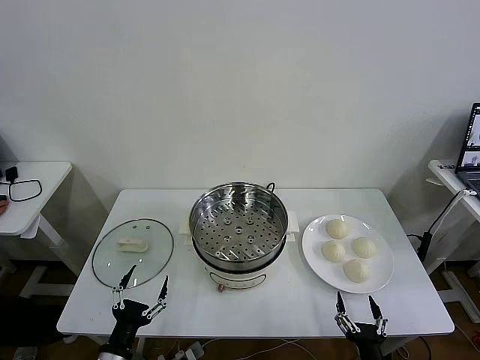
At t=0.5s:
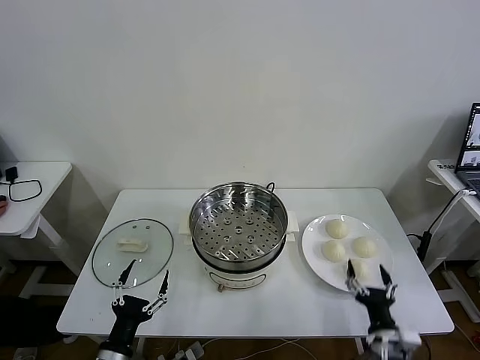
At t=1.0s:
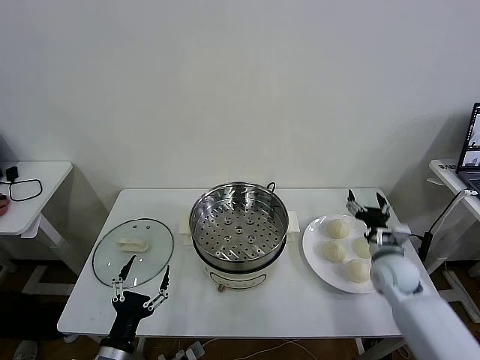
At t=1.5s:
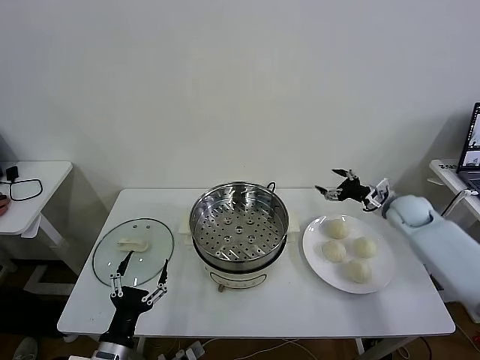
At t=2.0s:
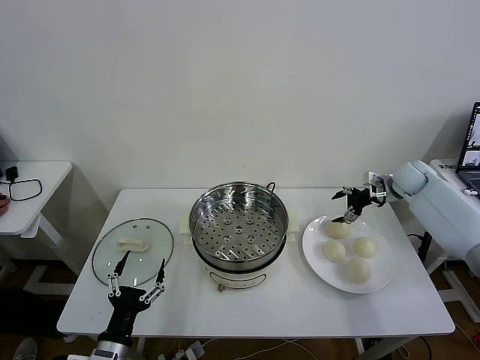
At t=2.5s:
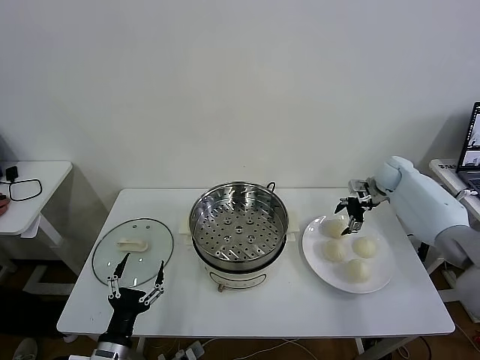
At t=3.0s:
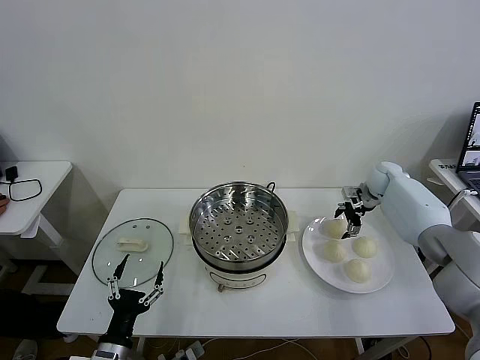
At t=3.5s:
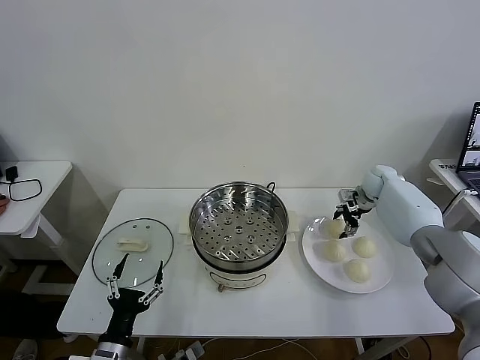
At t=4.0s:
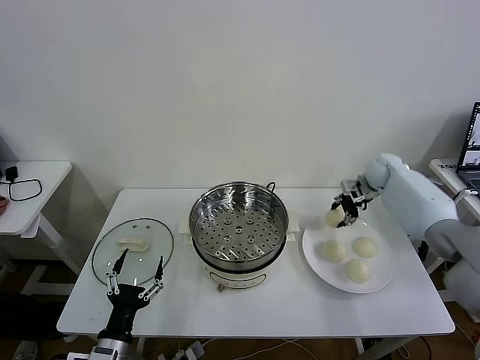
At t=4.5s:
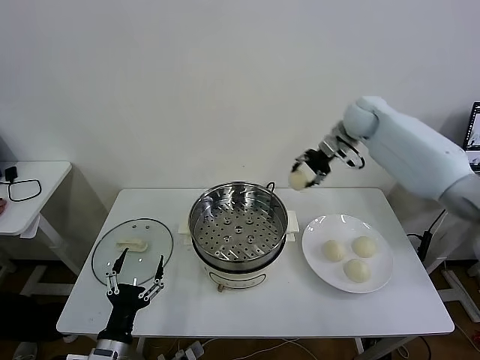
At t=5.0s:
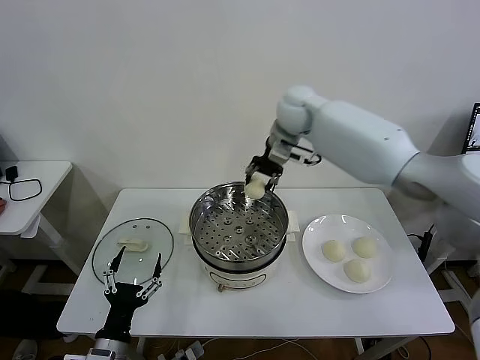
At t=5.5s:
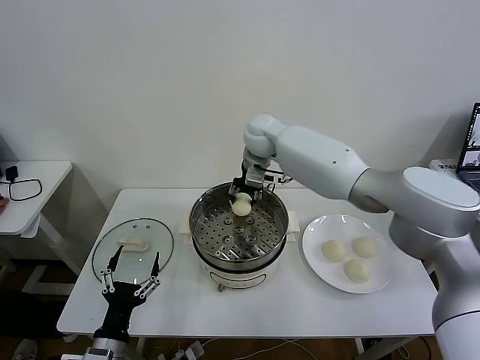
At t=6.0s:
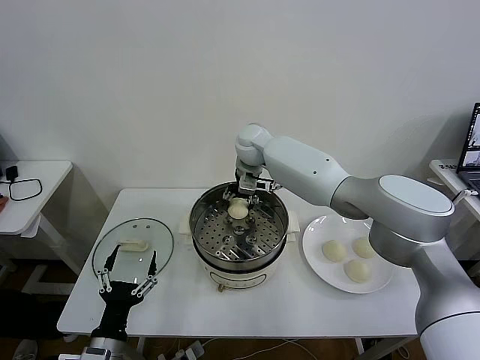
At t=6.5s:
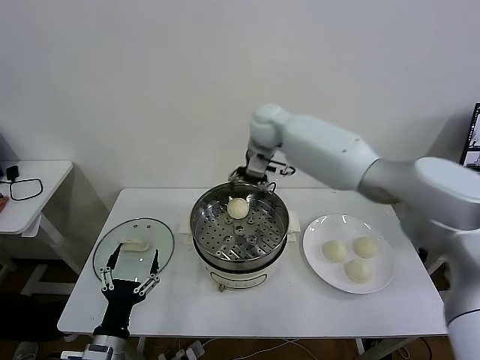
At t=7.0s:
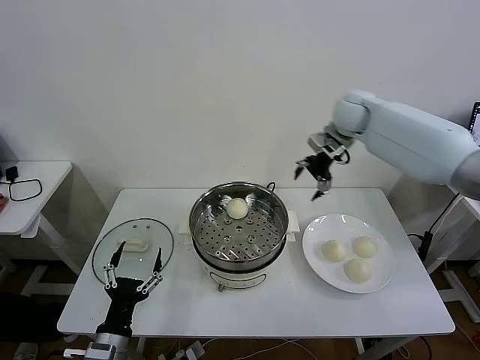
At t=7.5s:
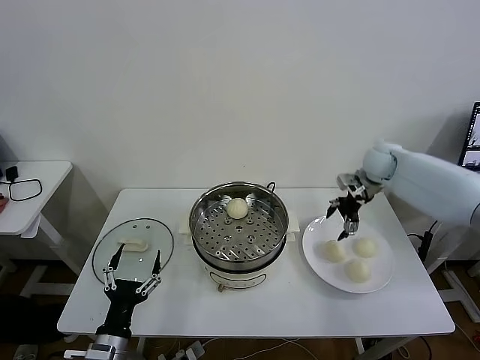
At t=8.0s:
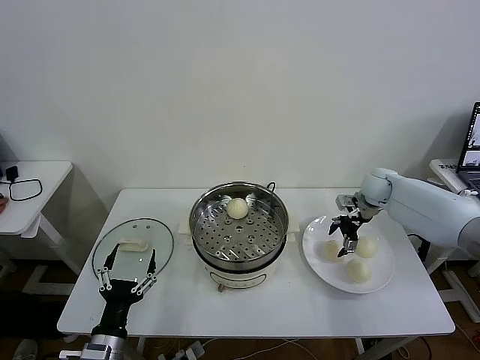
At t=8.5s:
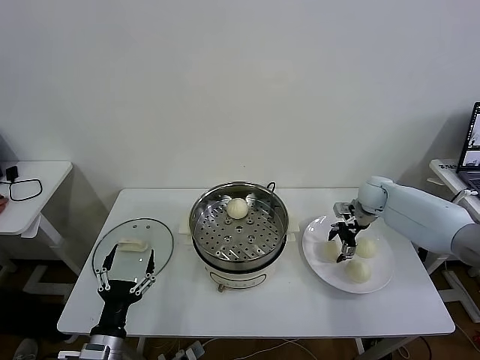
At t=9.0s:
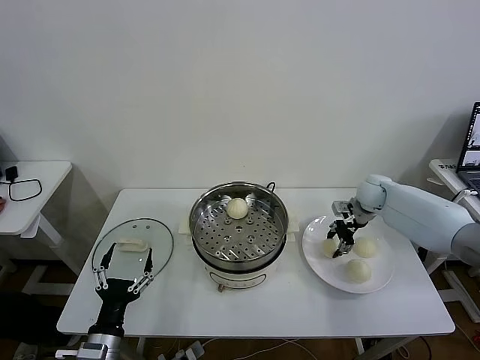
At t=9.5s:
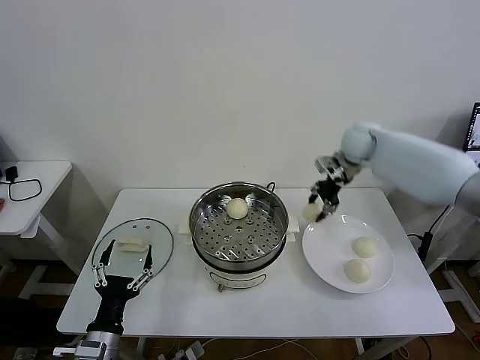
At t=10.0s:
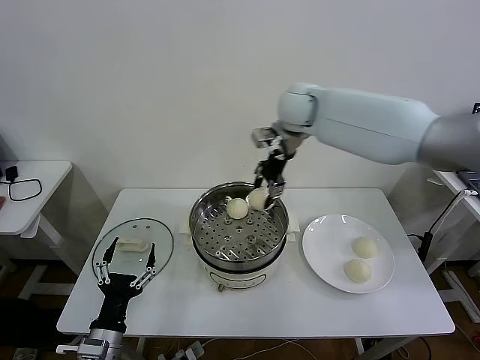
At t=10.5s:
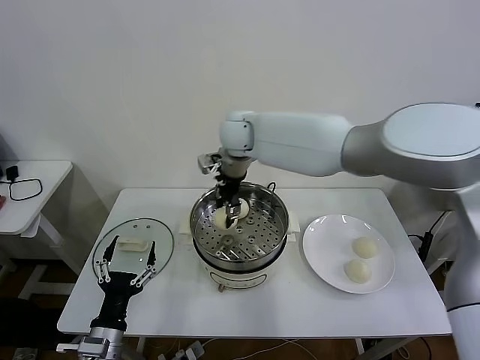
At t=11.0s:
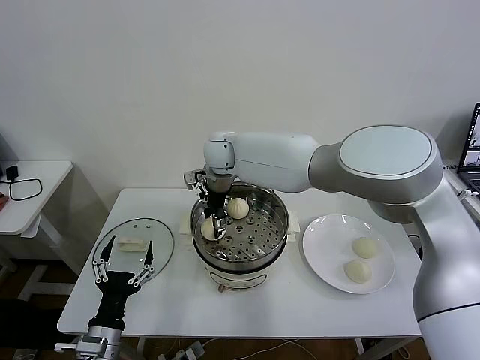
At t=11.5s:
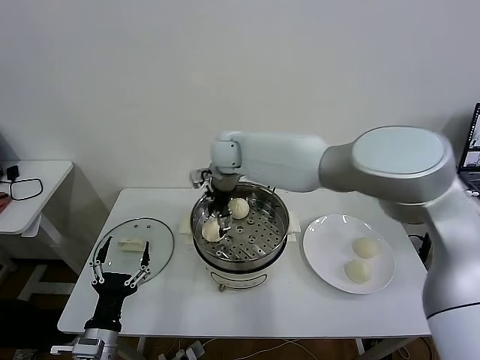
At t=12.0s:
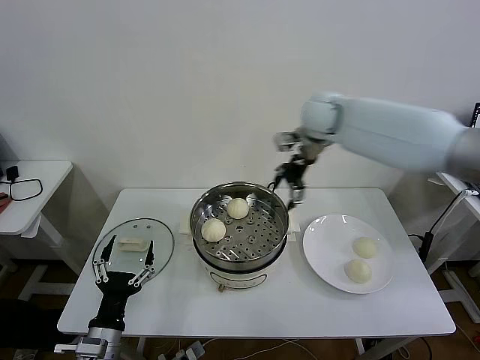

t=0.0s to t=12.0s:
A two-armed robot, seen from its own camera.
Task of the whole recording: take steamed baozi put them in steamer then cover it.
Step, t=0.0s to t=3.5s: Grasp the baozi in the plate with right gripper.
Step, t=4.0s to t=6.0s: Place the baozi on the steamer with right gripper.
Step, t=6.5s to t=8.5s: Grasp the baozi in the plate with right gripper.
Step, t=9.5s to t=11.5s: Place the baozi on the steamer with right gripper.
t=2.0s to t=4.0s: The right gripper goes some 5 cm to the left, goes downward and returns, approximately 5 cm each way, and closes.
t=4.0s to t=6.0s: The right gripper travels to the left by some 35 cm, and opens.
t=6.0s to t=8.0s: The right gripper is displaced to the right by roughly 35 cm.
t=8.0s to t=10.0s: The right gripper moves to the left and upward, some 35 cm, and closes up.
t=10.0s to t=12.0s: The right gripper goes approximately 10 cm to the right, and opens up.

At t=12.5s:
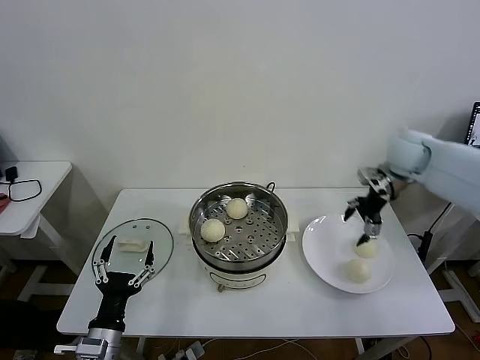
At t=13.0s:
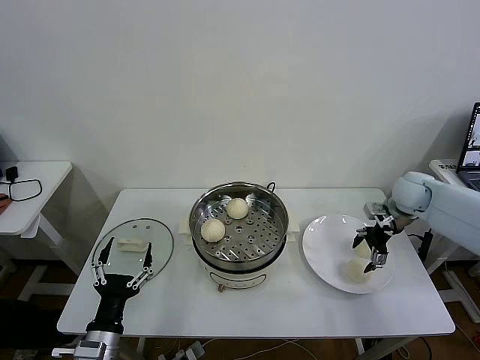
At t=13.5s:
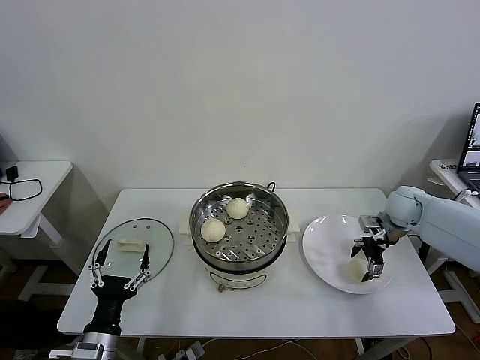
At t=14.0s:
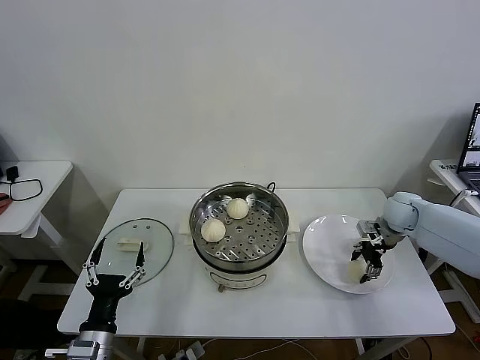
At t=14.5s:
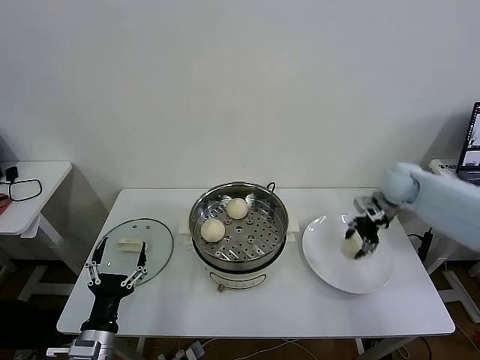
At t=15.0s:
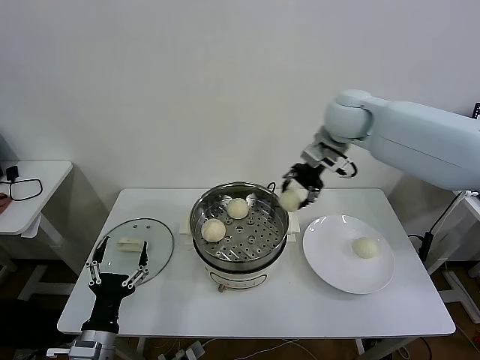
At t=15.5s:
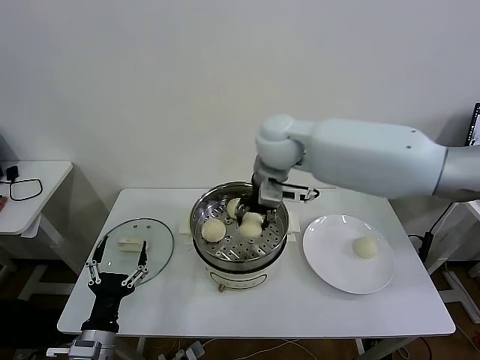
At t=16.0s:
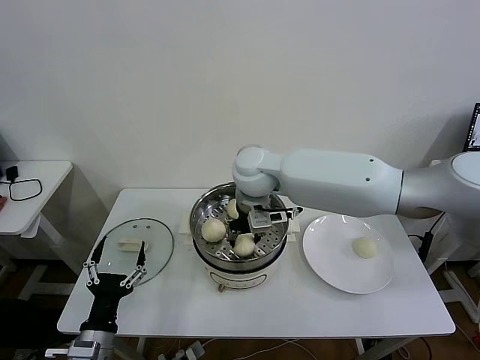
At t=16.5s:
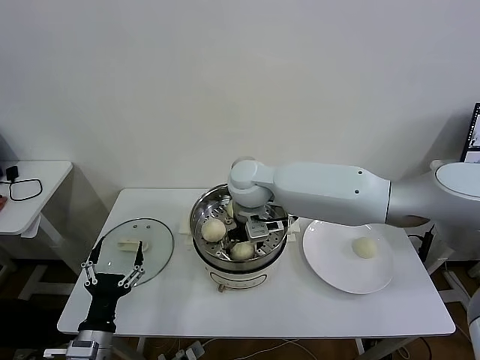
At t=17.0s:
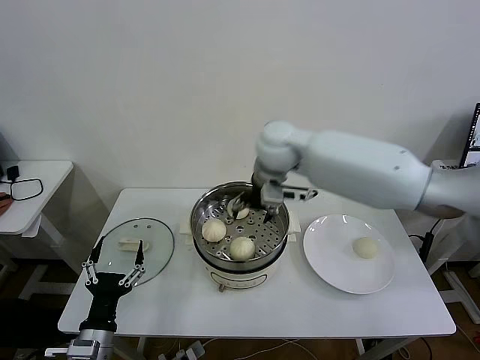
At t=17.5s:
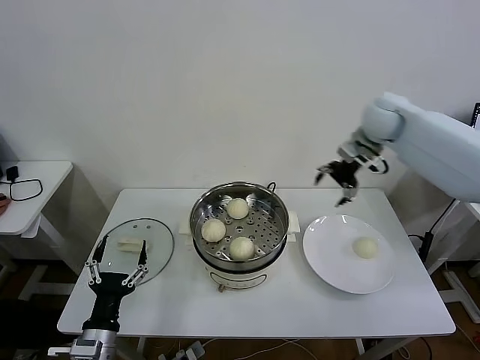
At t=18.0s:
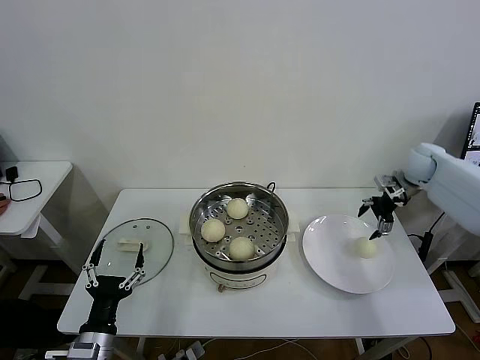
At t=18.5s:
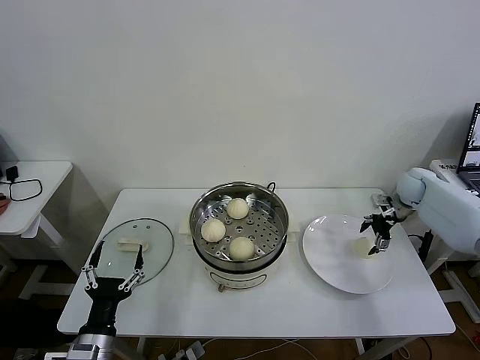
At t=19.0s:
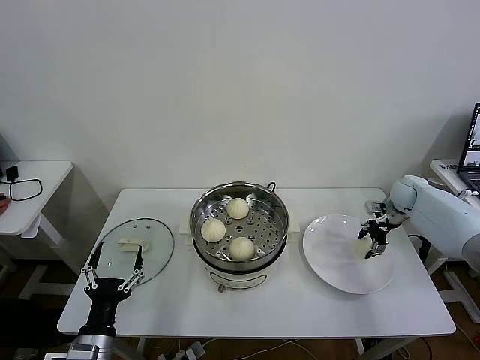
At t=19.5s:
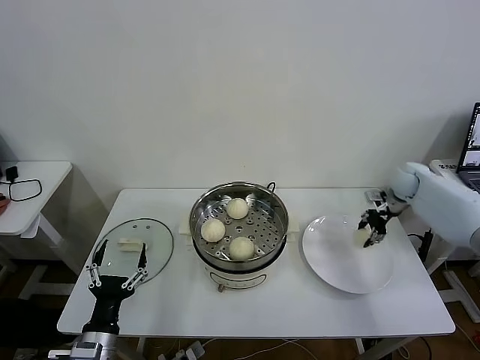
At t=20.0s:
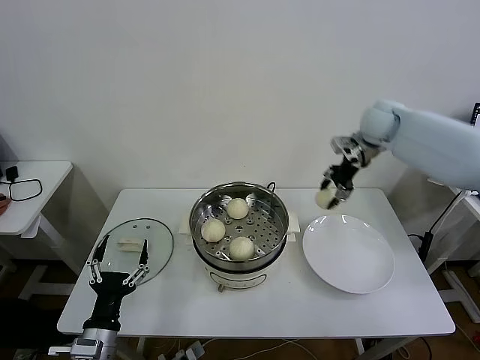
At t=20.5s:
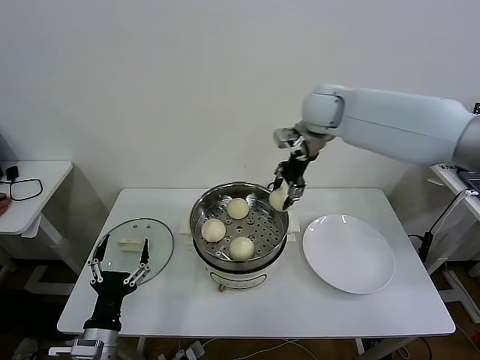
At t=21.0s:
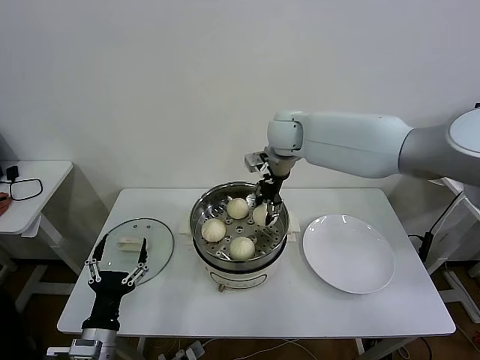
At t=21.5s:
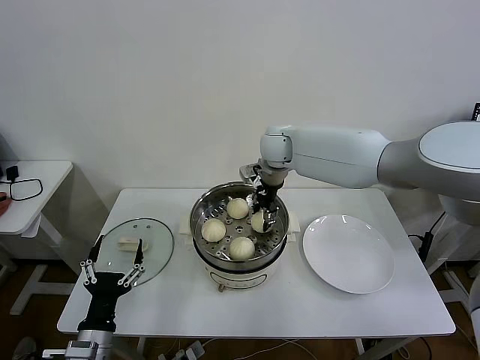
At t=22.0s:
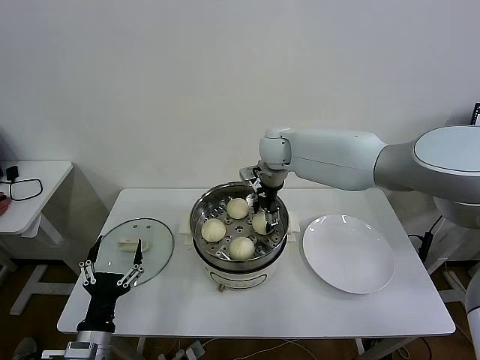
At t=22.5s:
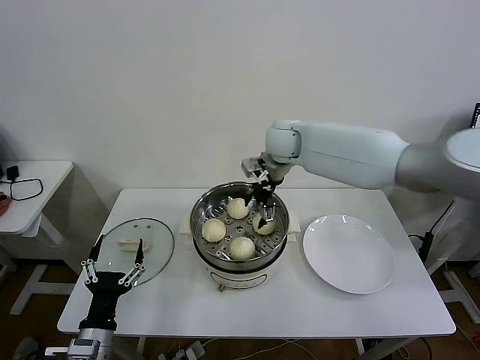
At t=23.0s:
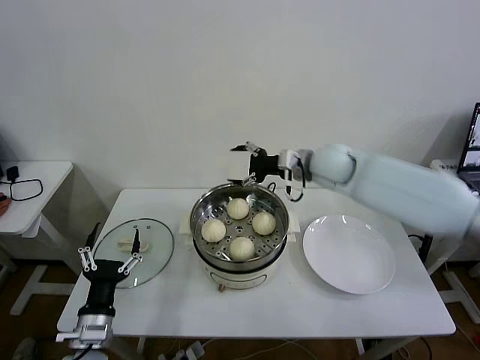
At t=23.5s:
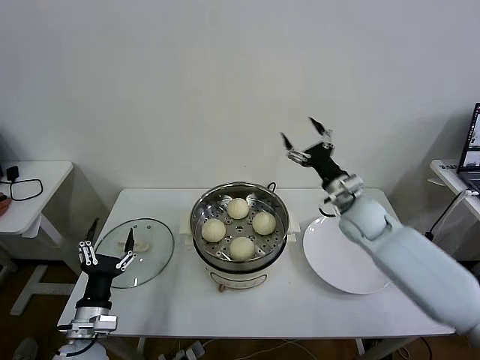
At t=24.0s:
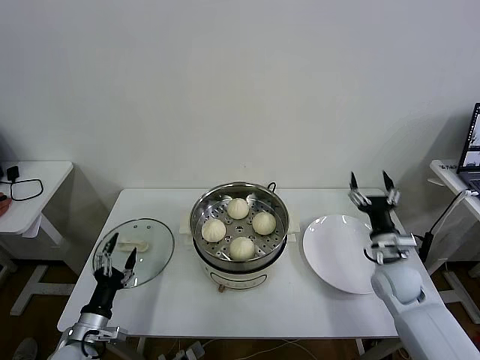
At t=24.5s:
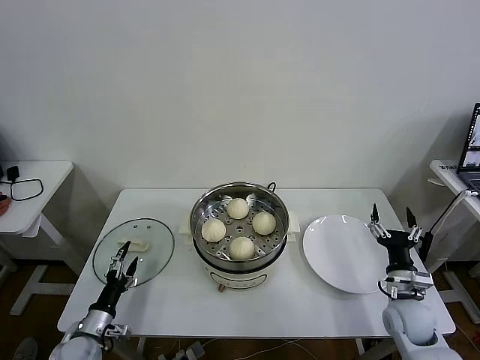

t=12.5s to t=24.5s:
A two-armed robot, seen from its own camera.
Task of the whole recording: take steamed baozi put them in steamer then cover it.
Step, t=12.5s to t=14.0s: Grasp the baozi in the plate with right gripper.
Step, t=14.5s to t=16.5s: Place the baozi on the steamer with right gripper.
Step, t=17.0s to t=19.0s: Grasp the baozi in the plate with right gripper.
Step, t=19.5s to t=22.0s: Place the baozi on the steamer with right gripper.
t=12.5s to t=14.5s: The right gripper travels downward and back again, some 15 cm each way, and closes up.
t=14.5s to t=16.5s: The right gripper moves to the left, some 35 cm, and opens up.
t=16.5s to t=18.5s: The right gripper moves to the right, some 40 cm.
t=18.5s to t=20.5s: The right gripper shifts approximately 40 cm to the left and upward, and closes.
t=20.5s to t=22.5s: The right gripper moves downward and to the left, roughly 10 cm, and opens its fingers.
t=22.5s to t=24.5s: The left gripper shifts about 15 cm downward, to the left and forward. Meanwhile the right gripper travels backward, downward and to the right by approximately 50 cm.

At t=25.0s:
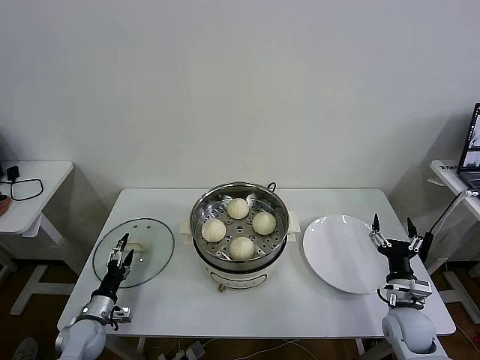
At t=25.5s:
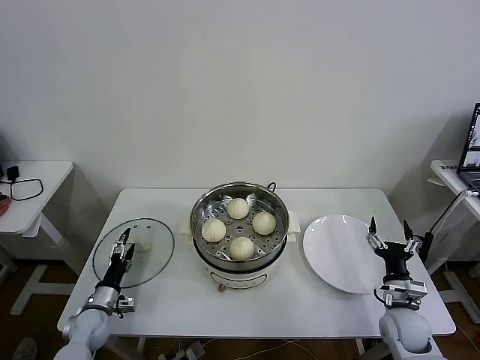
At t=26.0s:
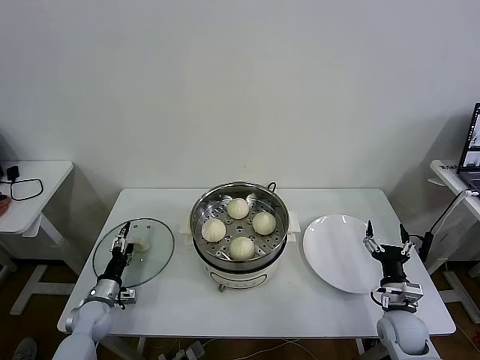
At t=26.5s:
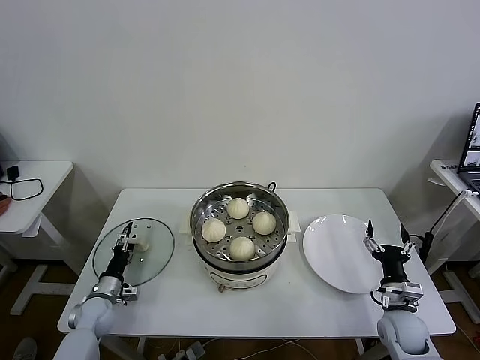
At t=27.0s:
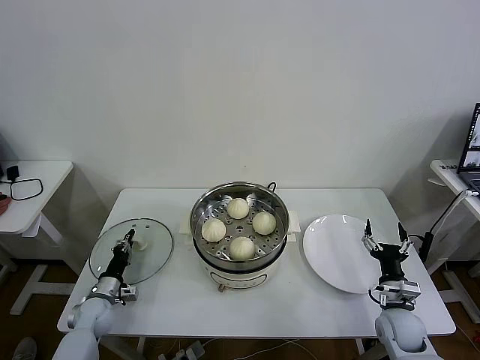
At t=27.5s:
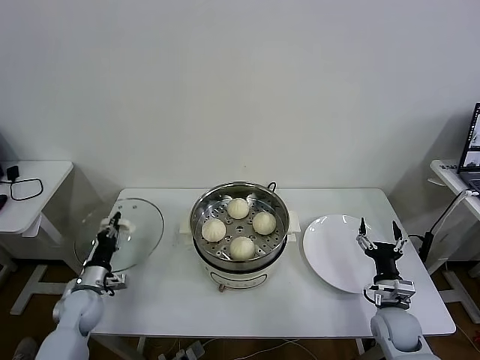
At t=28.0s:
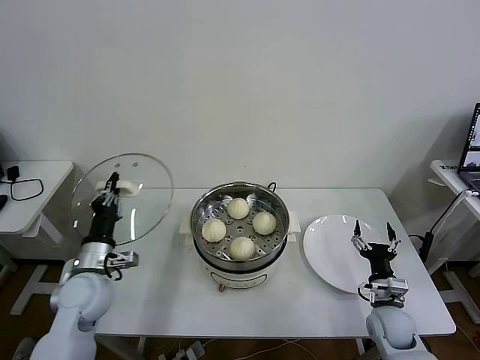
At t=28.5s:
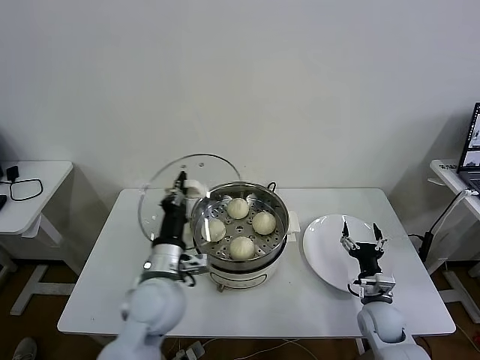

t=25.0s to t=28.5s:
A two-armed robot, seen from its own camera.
Task of the whole recording: take steamed baozi put them in steamer then cover it.
Step, t=25.0s to t=27.0s: Grasp the pot lid with left gripper.
t=25.0s to t=27.0s: The left gripper travels forward by some 5 cm, and closes up.
t=27.0s to t=28.5s: The left gripper travels upward and to the right by roughly 35 cm.
